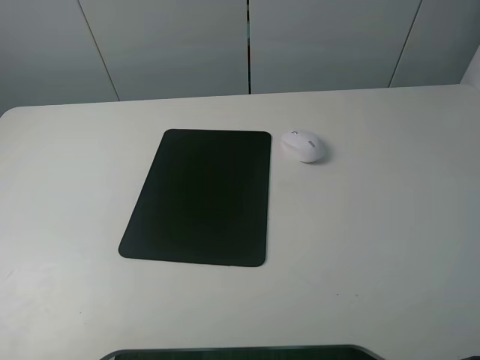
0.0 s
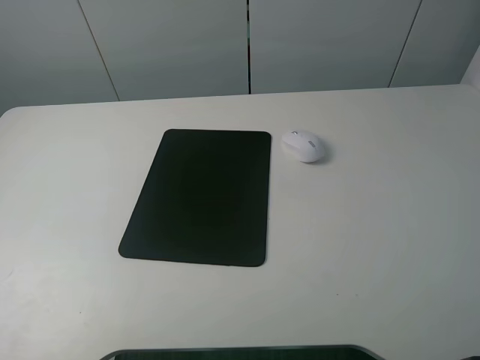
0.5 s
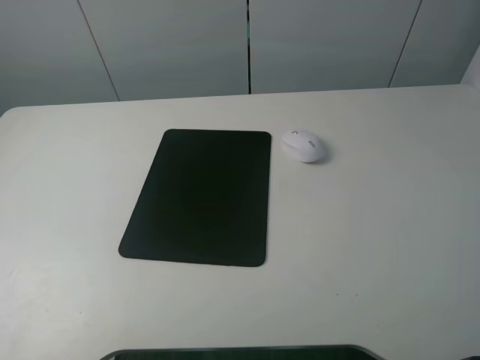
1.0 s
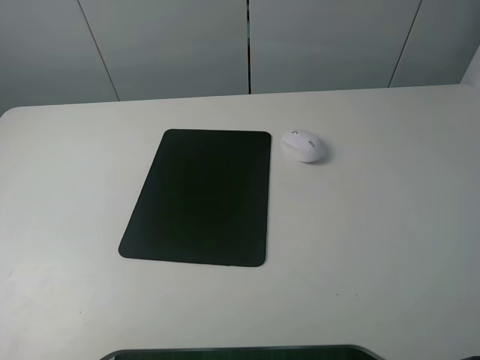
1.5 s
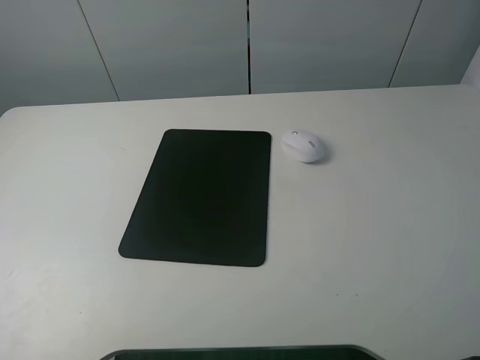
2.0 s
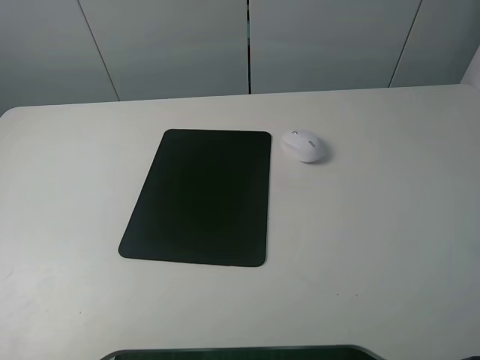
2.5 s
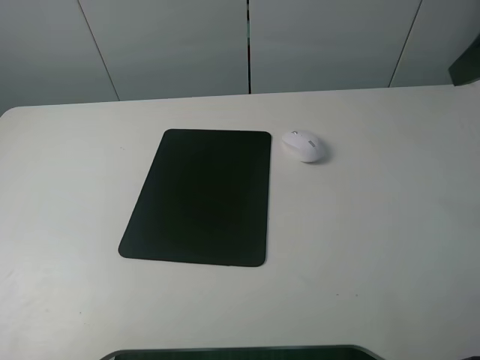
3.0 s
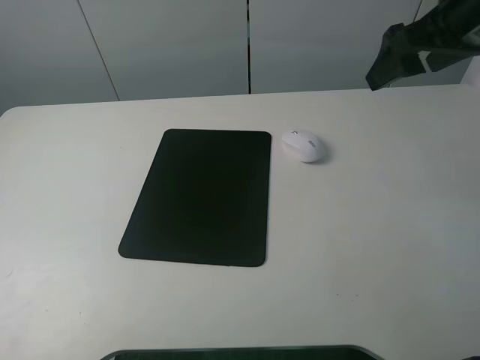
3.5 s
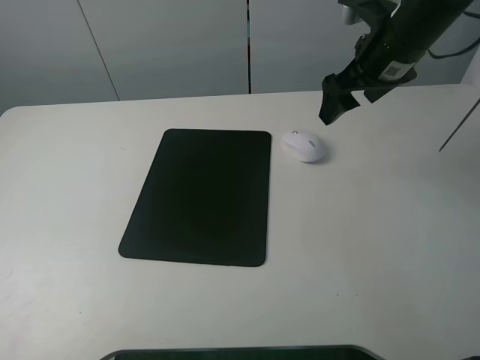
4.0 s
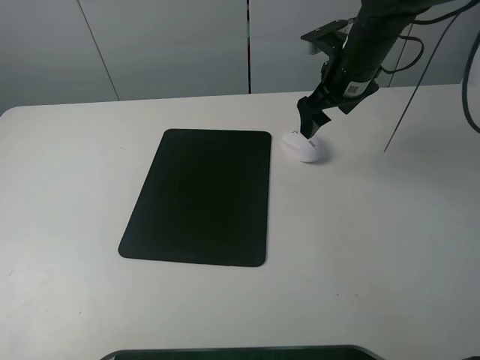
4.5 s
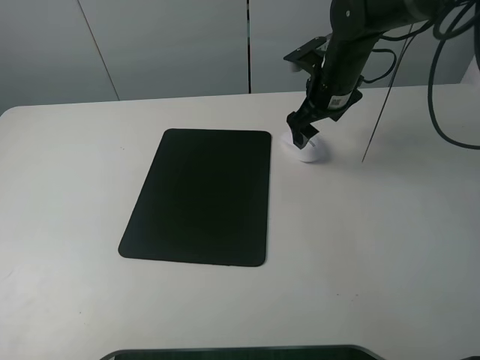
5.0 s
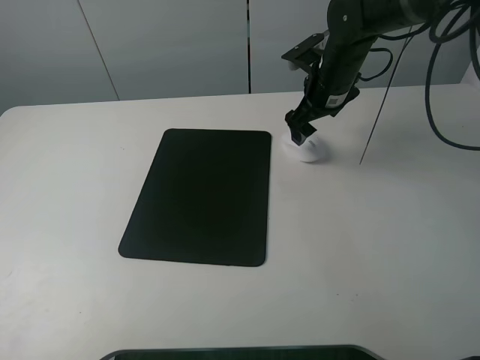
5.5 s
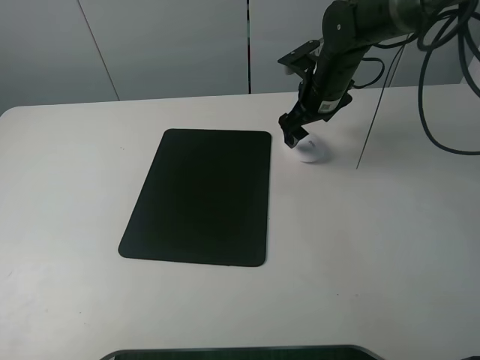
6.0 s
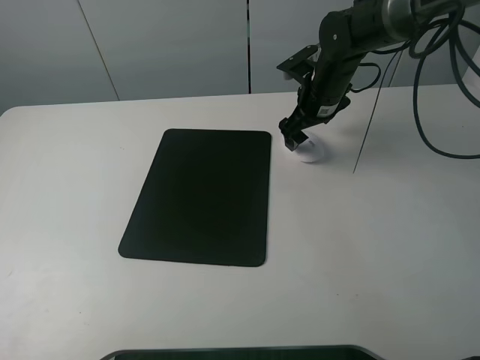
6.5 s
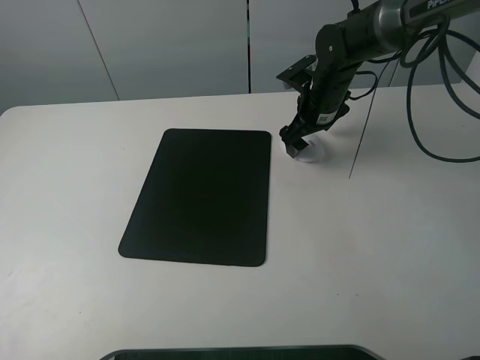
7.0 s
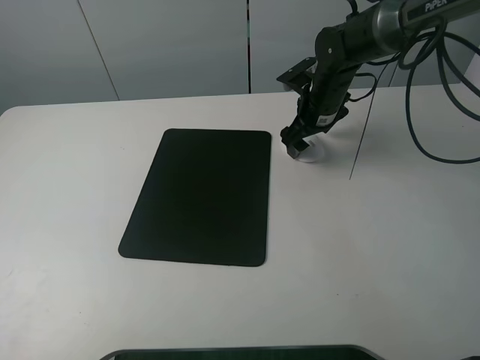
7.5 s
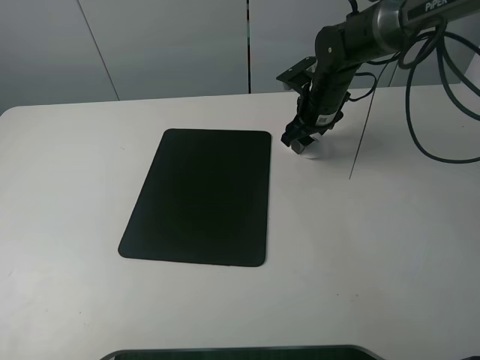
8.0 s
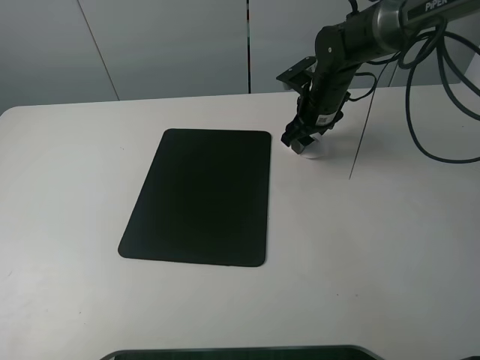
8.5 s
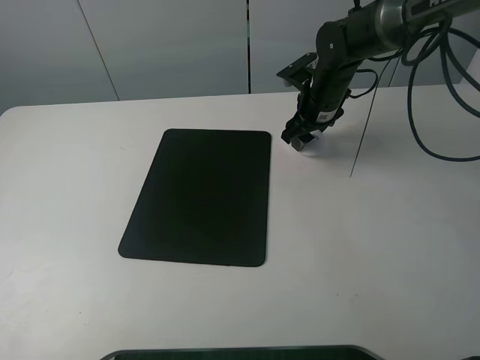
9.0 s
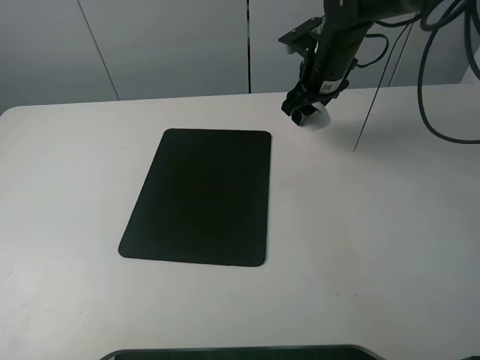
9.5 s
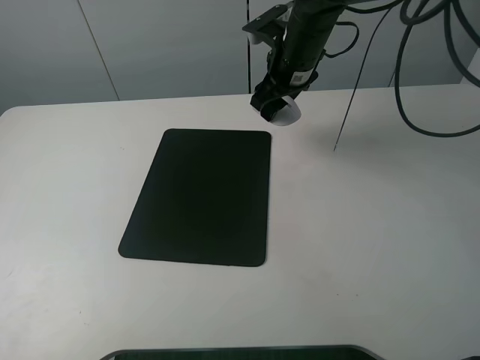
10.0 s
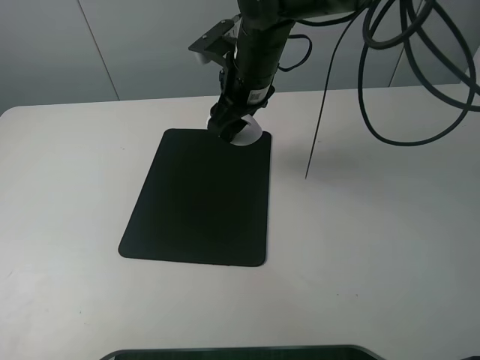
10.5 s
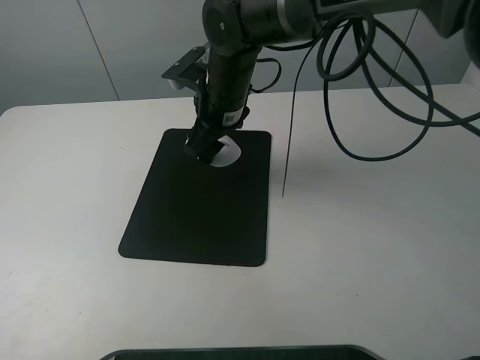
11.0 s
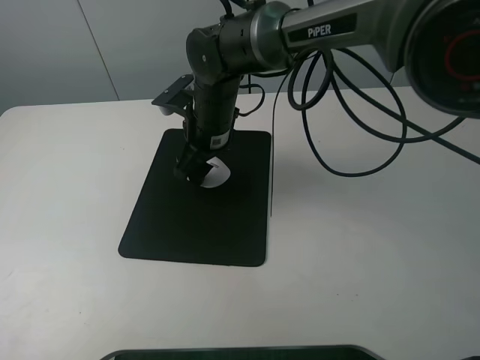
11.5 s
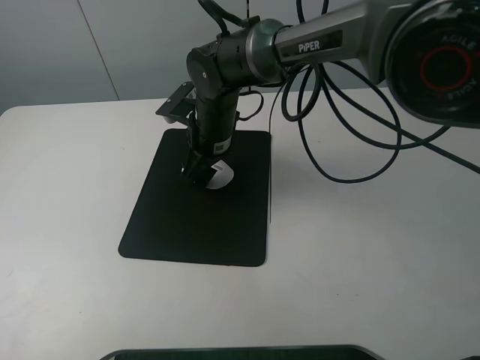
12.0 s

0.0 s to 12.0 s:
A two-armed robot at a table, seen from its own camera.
Step, 0.0 to 8.5 s: Grasp the mouse with the right gripper.
2.0 to 4.0 s: The right gripper is displaced forward by roughly 35 cm.
4.0 to 6.0 s: The right gripper heads downward, forward and to the left, covering approximately 15 cm.
6.0 to 8.0 s: The right gripper closes.
8.0 to 10.0 s: The right gripper shifts roughly 10 cm upward and to the left.
10.0 to 12.0 s: The right gripper is displaced to the left, downward and backward by approximately 15 cm.

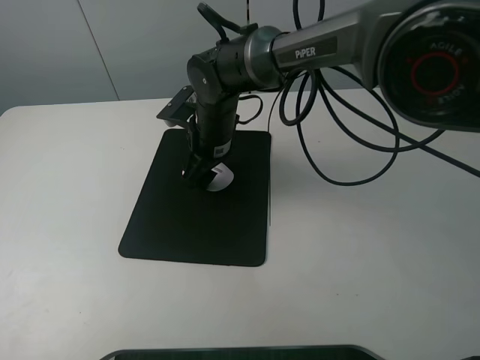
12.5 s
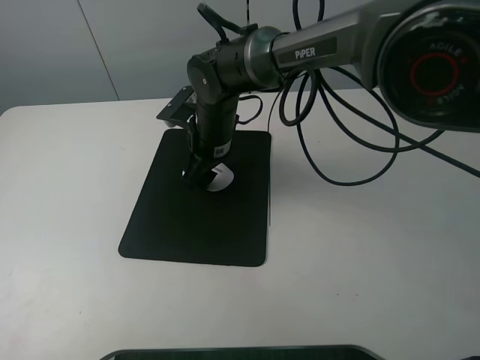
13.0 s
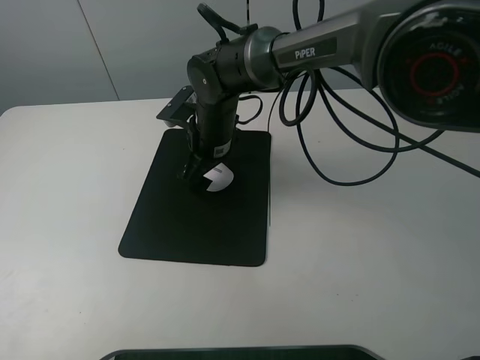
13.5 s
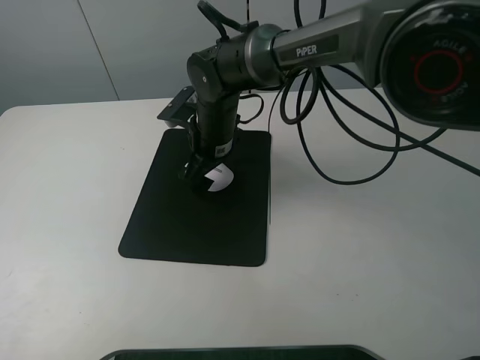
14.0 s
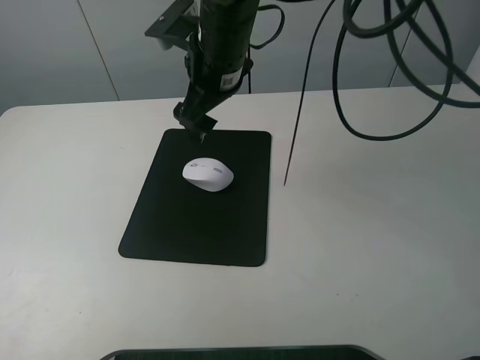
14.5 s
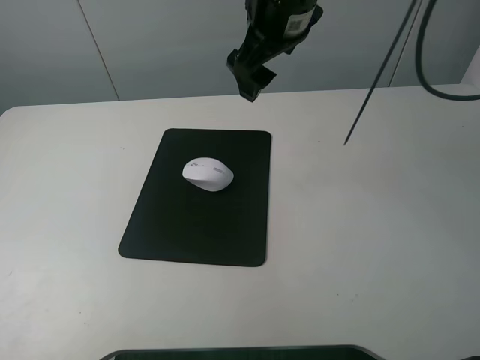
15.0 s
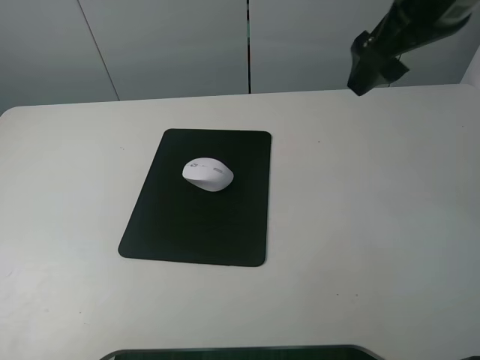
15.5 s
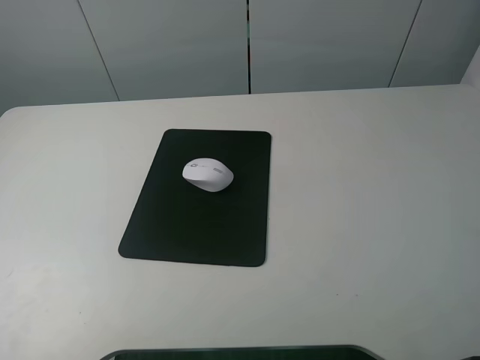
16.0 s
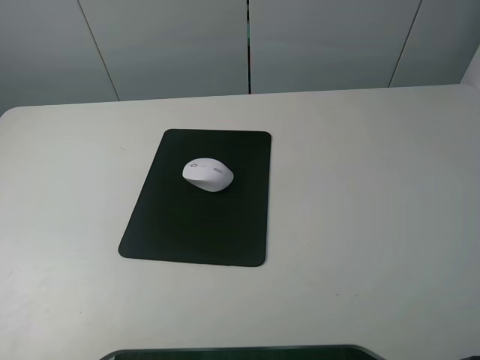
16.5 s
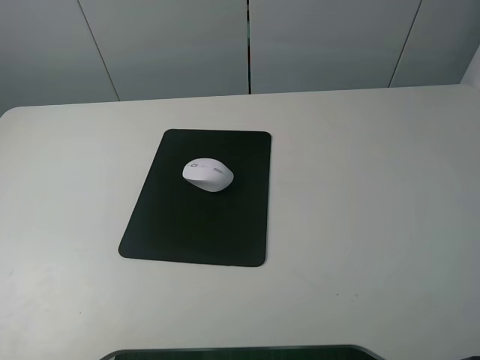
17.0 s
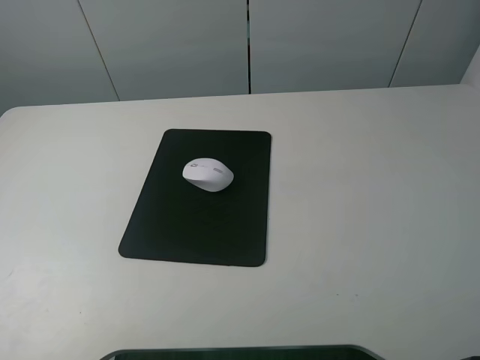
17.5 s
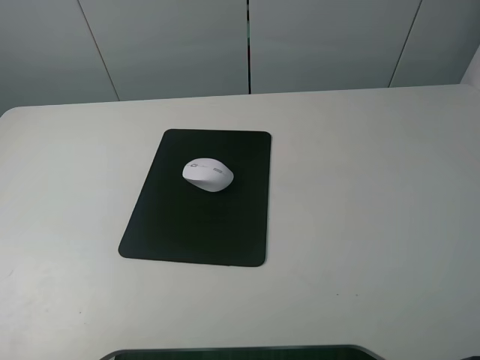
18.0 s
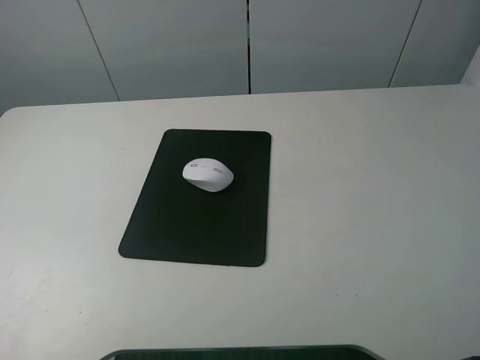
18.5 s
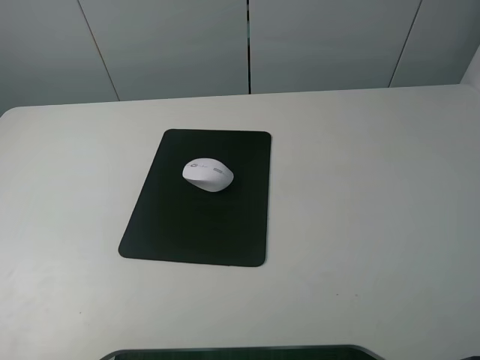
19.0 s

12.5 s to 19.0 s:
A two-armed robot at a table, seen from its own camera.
12.5 to 14.5 s: The right gripper travels upward by approximately 15 cm, and opens its fingers.
14.5 to 17.0 s: The right gripper is displaced backward and to the right by approximately 50 cm.
